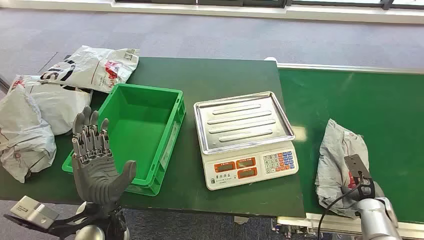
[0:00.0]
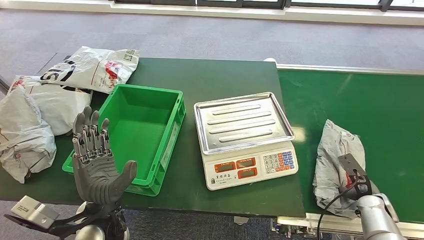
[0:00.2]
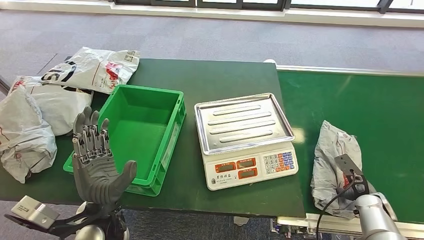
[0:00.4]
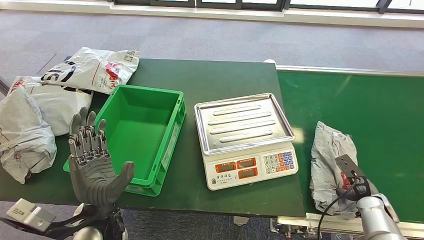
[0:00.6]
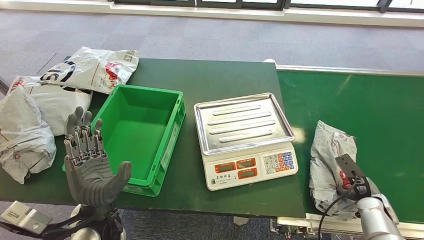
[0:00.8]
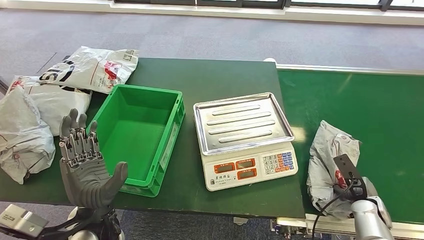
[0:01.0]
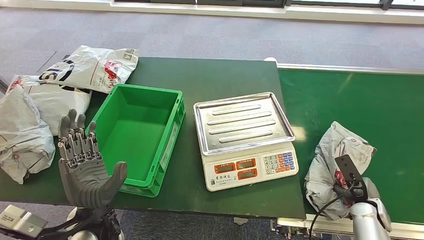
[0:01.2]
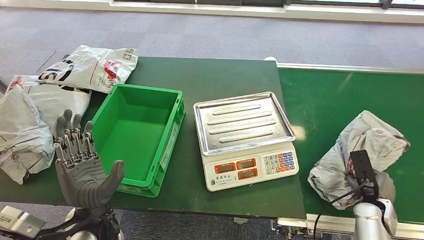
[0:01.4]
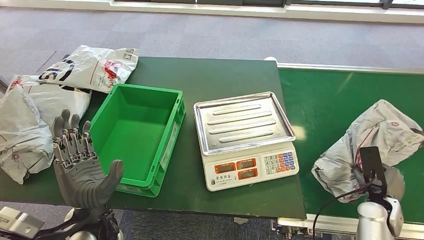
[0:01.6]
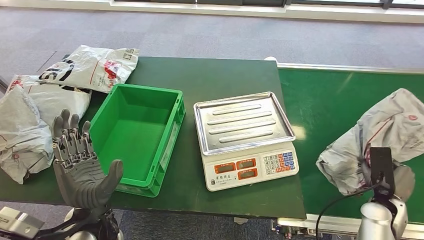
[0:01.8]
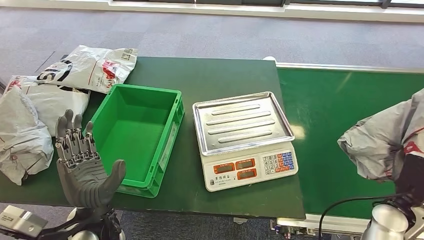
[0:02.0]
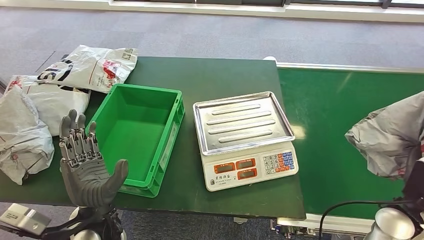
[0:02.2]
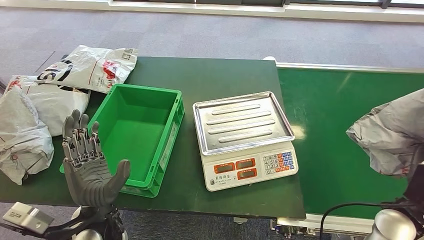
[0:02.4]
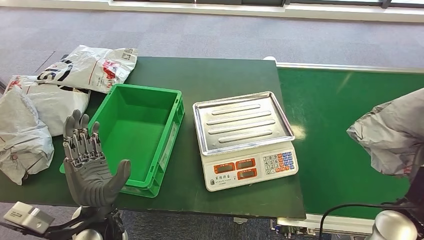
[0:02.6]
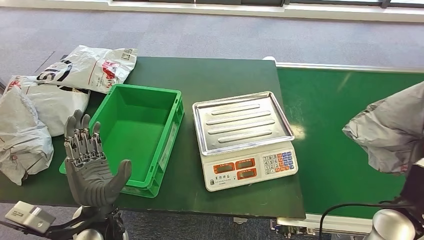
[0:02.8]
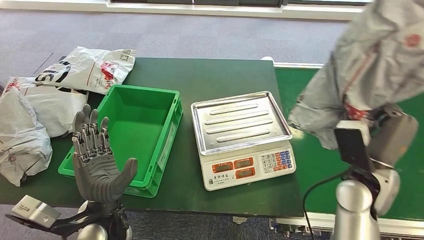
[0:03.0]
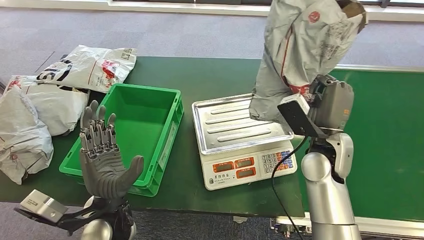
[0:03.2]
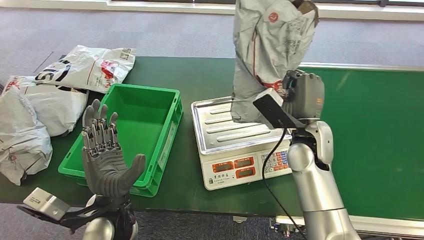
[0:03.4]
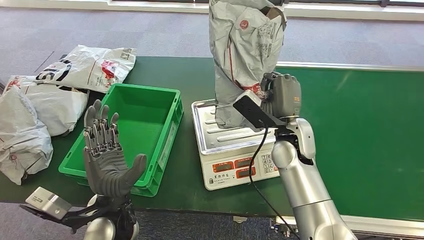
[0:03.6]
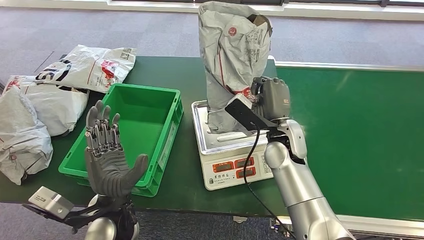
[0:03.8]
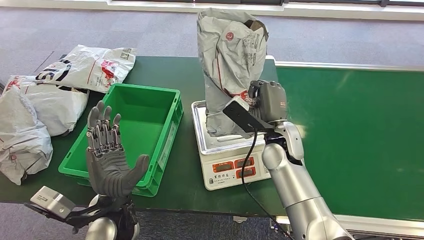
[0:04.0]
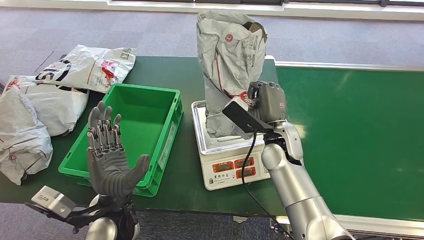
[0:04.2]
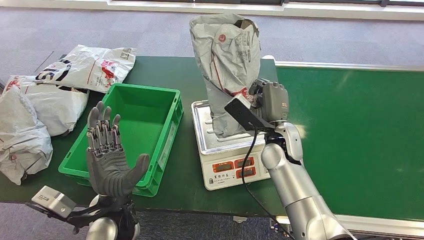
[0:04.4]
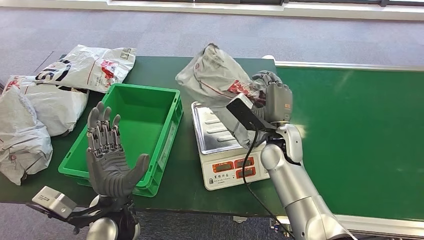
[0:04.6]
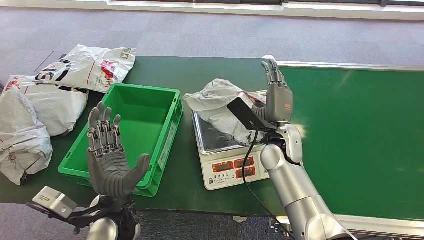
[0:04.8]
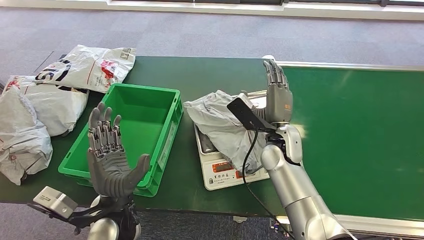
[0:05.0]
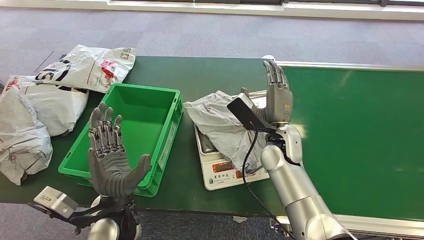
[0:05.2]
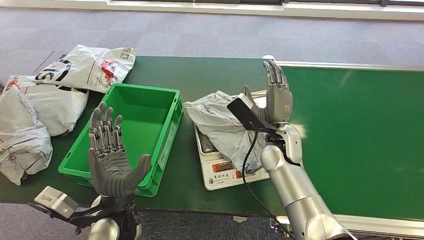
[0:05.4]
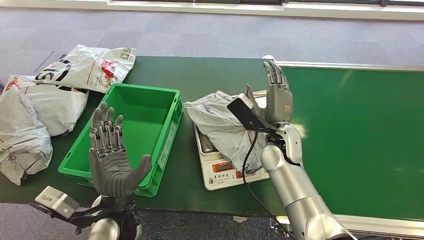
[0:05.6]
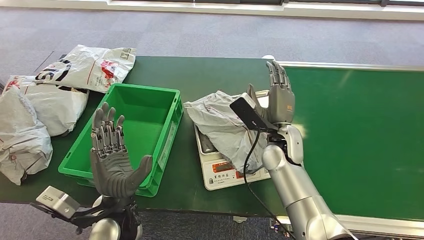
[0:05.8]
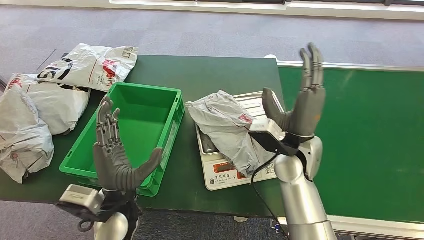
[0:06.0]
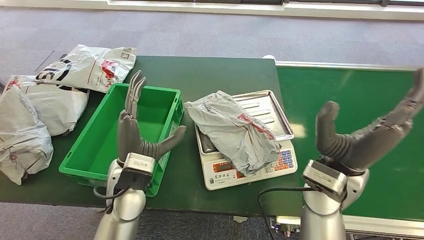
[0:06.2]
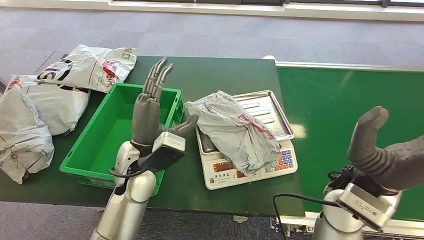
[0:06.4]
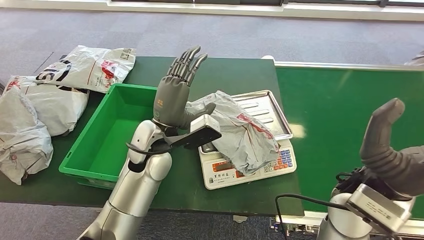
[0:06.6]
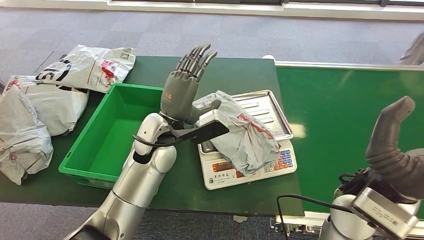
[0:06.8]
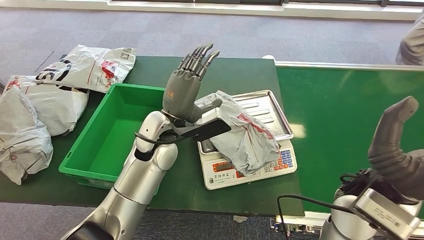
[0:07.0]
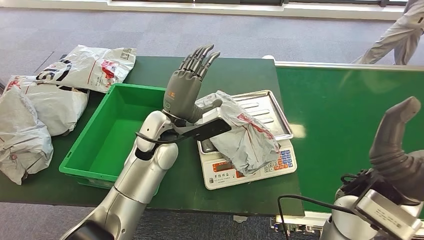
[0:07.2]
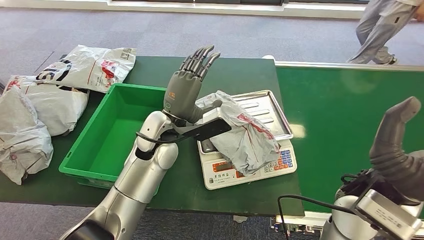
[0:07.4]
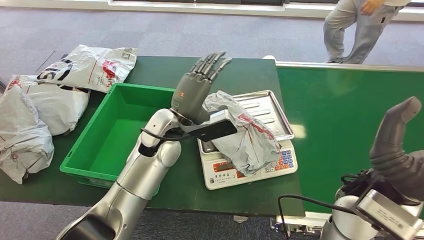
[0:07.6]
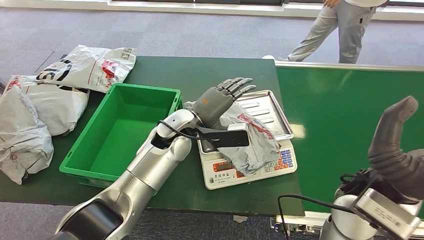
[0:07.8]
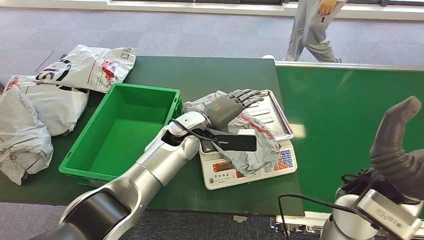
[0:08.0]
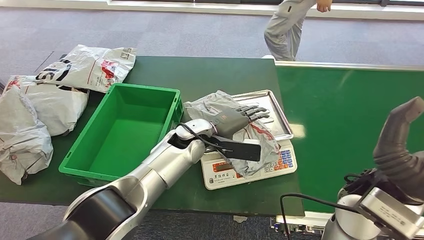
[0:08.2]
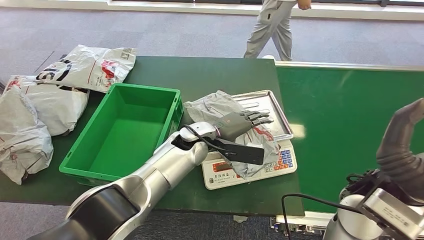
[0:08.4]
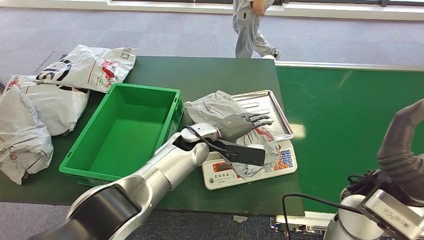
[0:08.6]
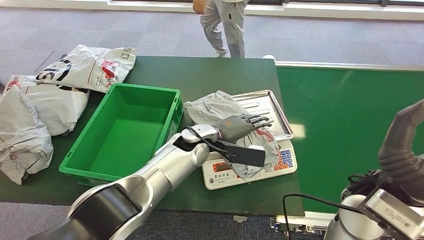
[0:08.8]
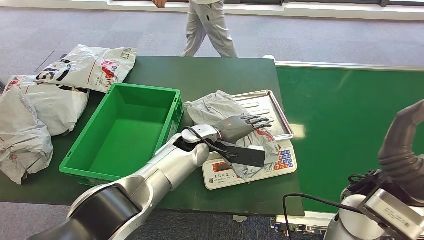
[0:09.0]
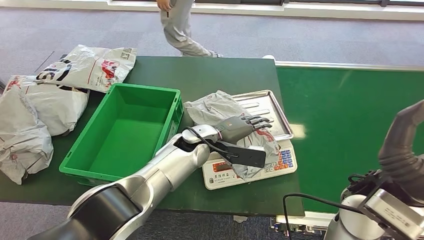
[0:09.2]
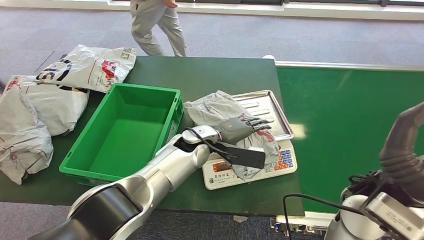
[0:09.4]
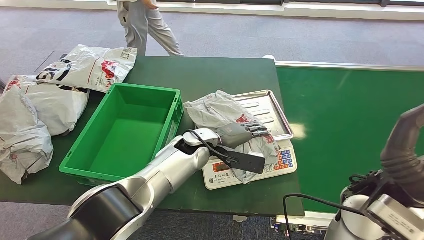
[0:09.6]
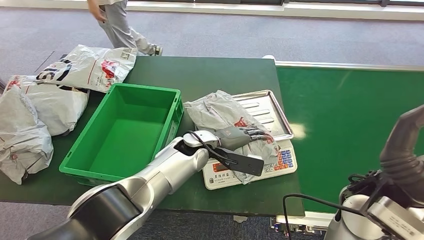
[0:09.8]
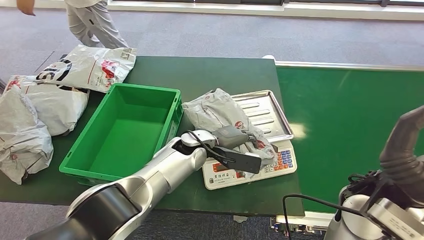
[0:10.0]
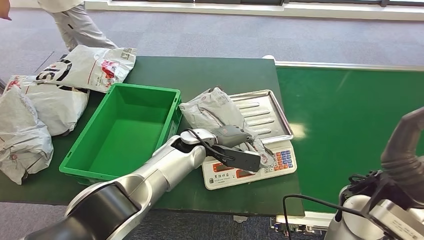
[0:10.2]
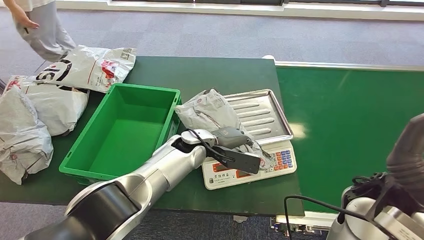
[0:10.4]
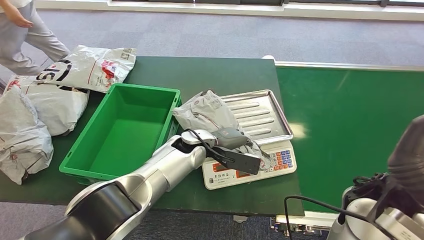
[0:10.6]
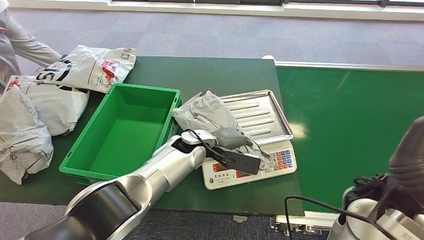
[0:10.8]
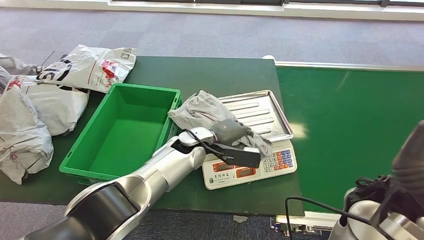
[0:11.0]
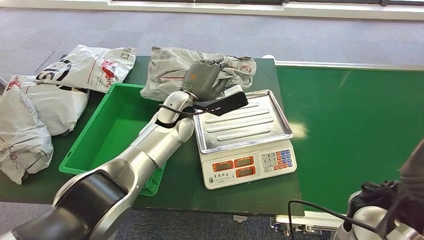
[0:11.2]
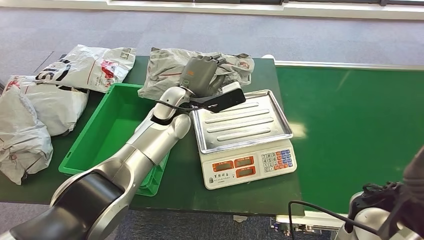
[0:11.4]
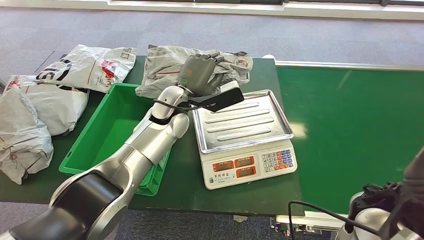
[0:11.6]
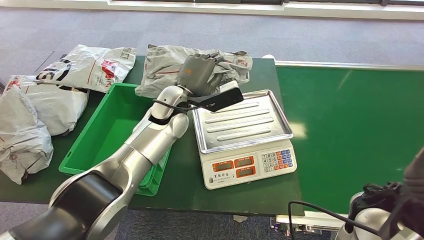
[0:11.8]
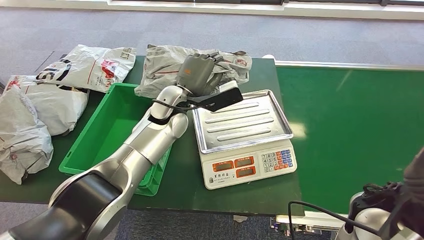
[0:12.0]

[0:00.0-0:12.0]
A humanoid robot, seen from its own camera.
Task of the whole recording: Weigh the package on the weighing device and place it in the left basket.
Step, 0:00.0 to 0:01.8: Pick up the package from the conveyor belt.
Step, 0:02.0 to 0:07.4: Place the package onto the inbound machine.
0:09.0 to 0:10.4: The hands make only small movements.

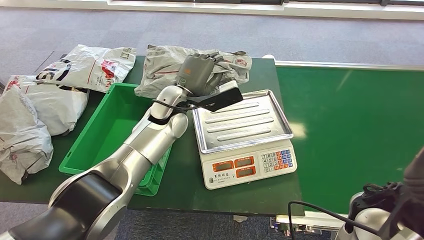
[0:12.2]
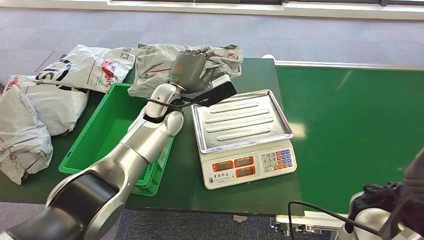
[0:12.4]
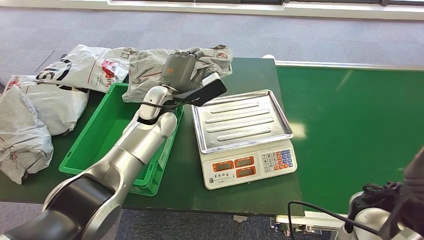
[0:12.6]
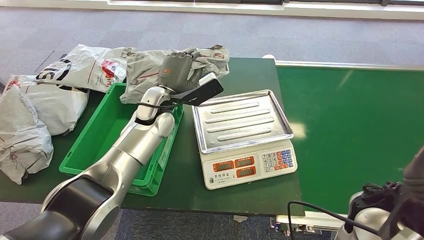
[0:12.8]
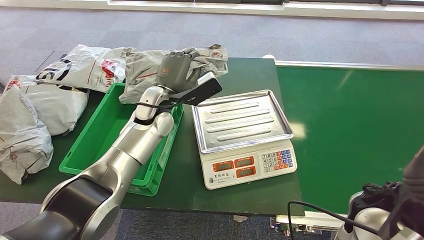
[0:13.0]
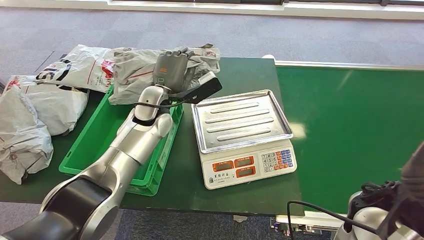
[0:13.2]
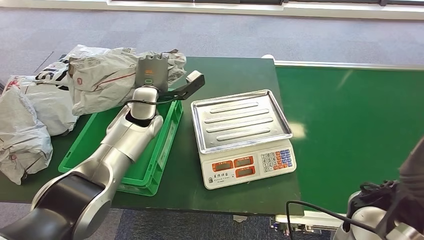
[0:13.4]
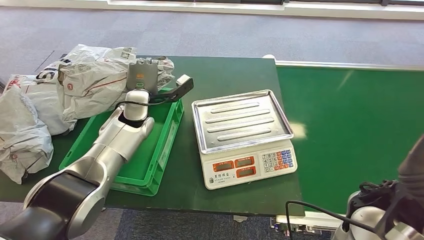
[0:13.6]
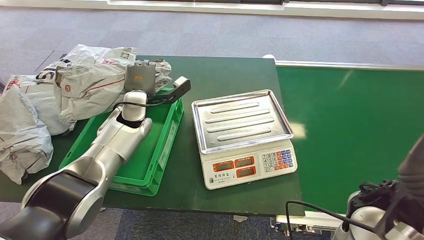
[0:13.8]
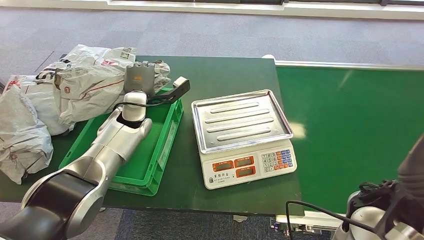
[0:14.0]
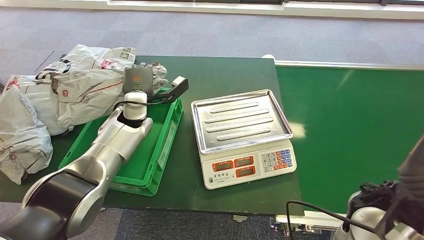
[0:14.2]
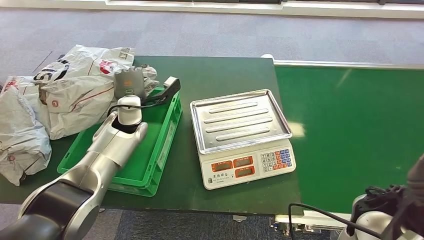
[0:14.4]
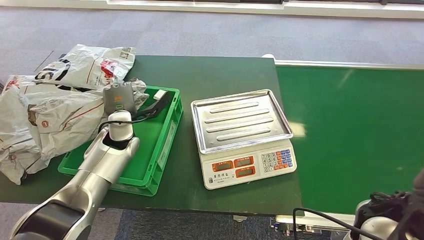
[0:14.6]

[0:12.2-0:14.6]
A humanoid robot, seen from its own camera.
Task of the whole recording: Weigh the package on the weighing device and place it in the left basket.
Step, 0:13.2 to 0:14.6: Place the package into the parcel locker.
0:12.2 to 0:13.4: The left hand moves to the left, approximately 5 cm.
0:13.4 to 0:14.6: The left hand is displaced to the left and downward by roughly 10 cm.
